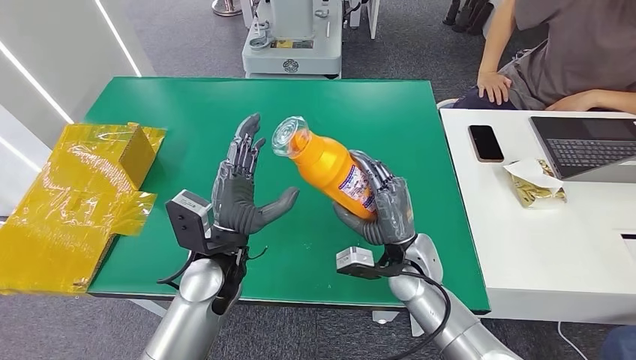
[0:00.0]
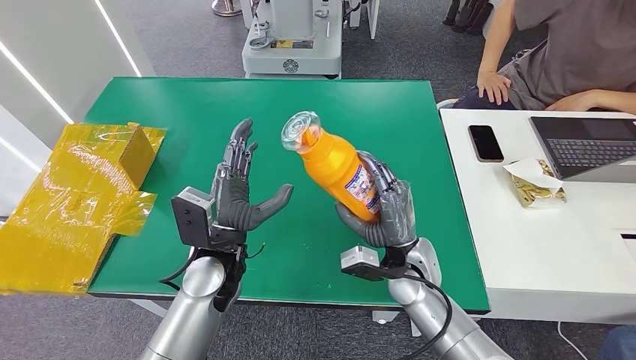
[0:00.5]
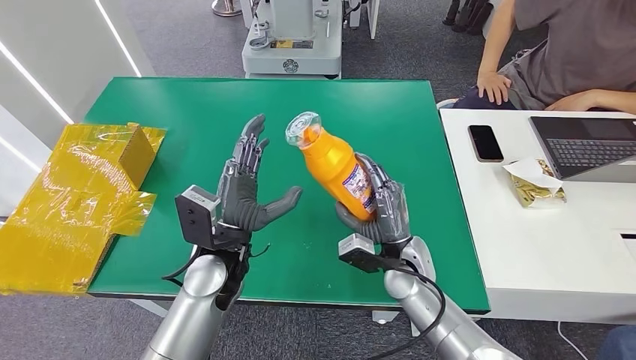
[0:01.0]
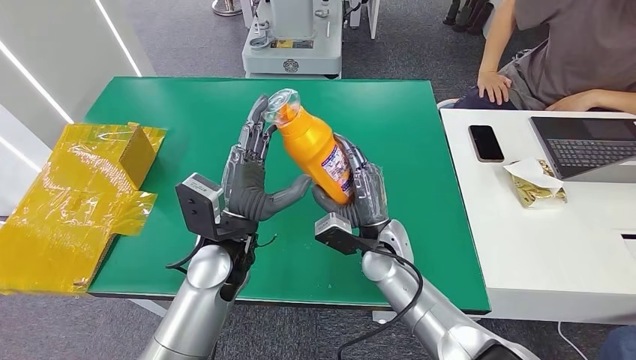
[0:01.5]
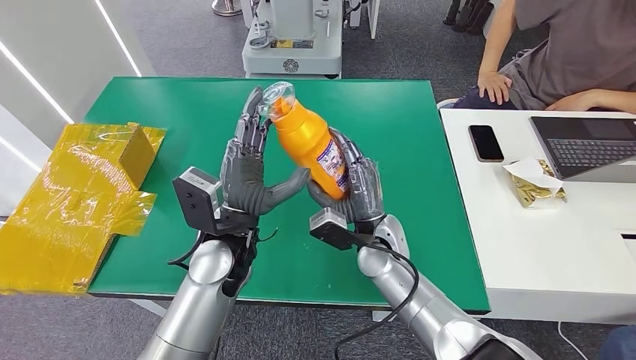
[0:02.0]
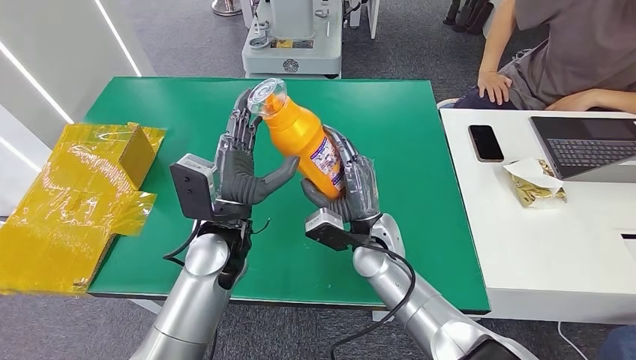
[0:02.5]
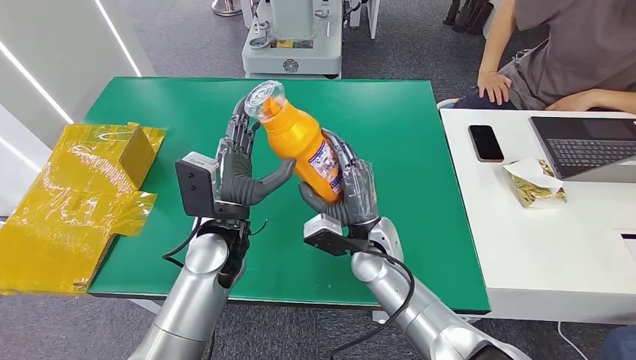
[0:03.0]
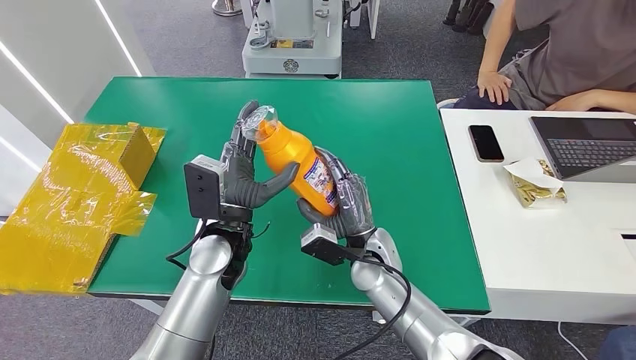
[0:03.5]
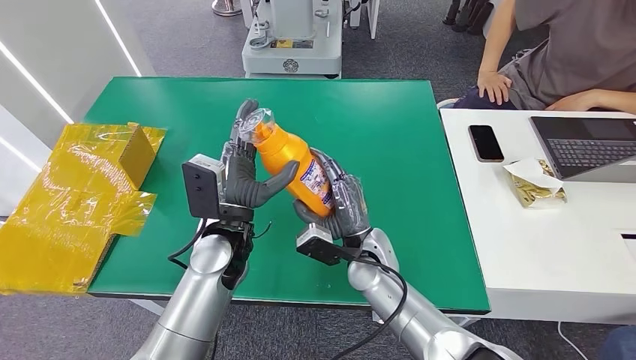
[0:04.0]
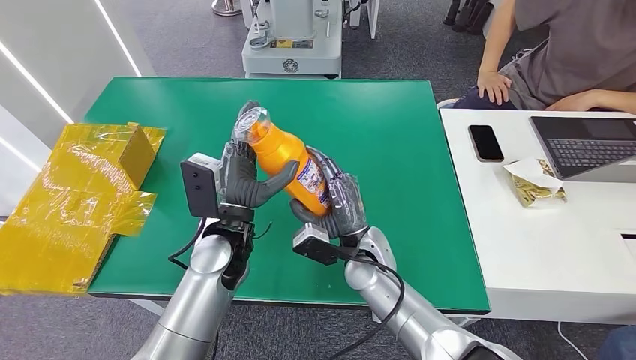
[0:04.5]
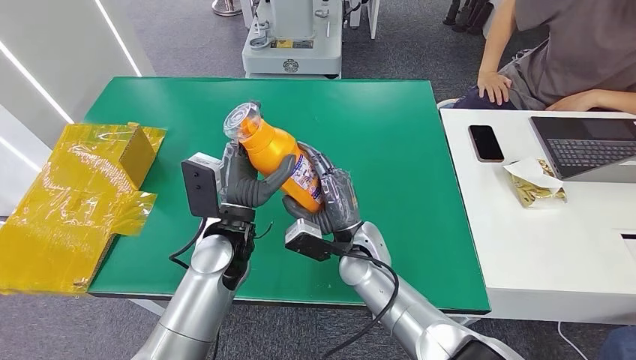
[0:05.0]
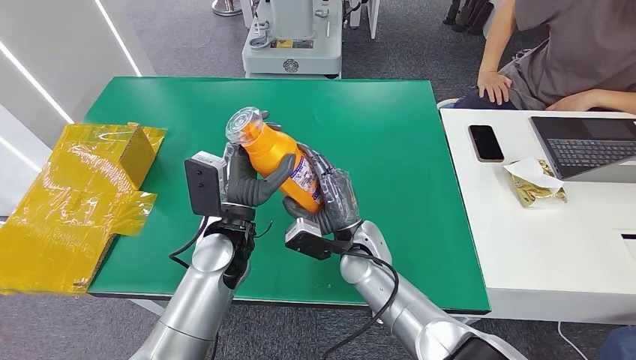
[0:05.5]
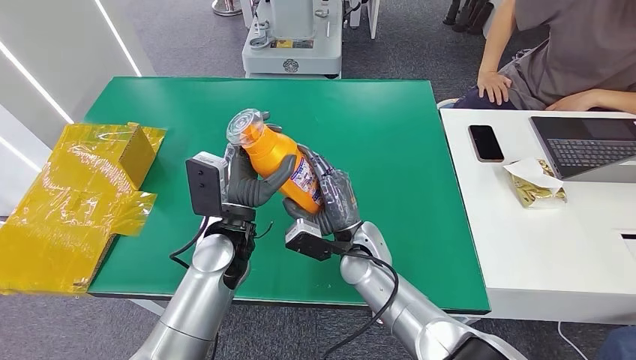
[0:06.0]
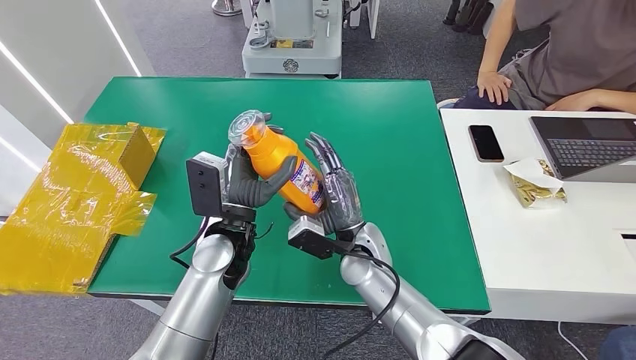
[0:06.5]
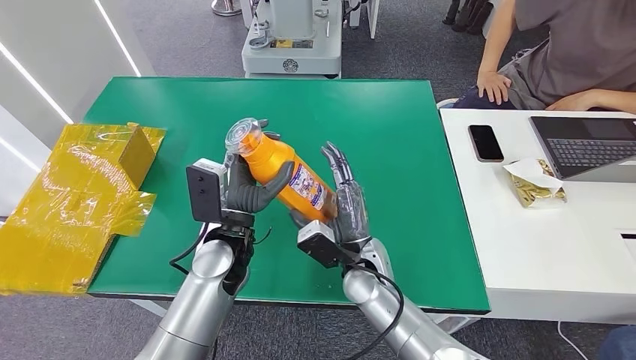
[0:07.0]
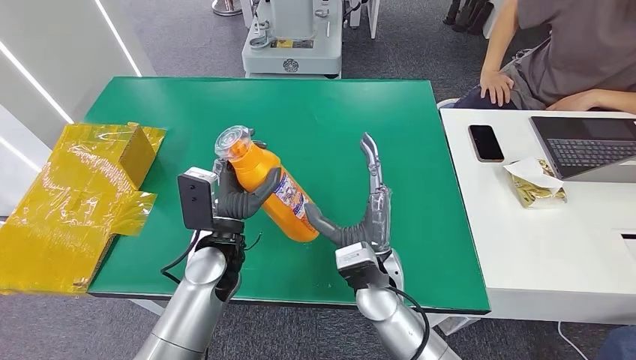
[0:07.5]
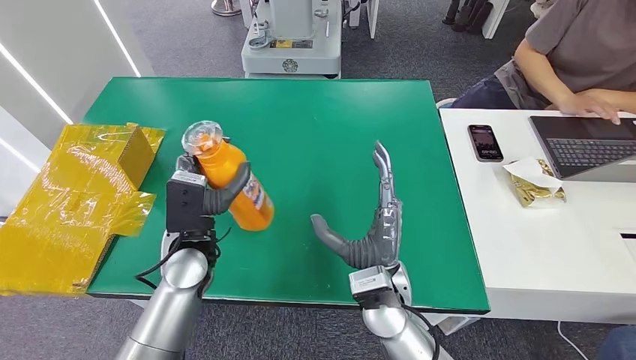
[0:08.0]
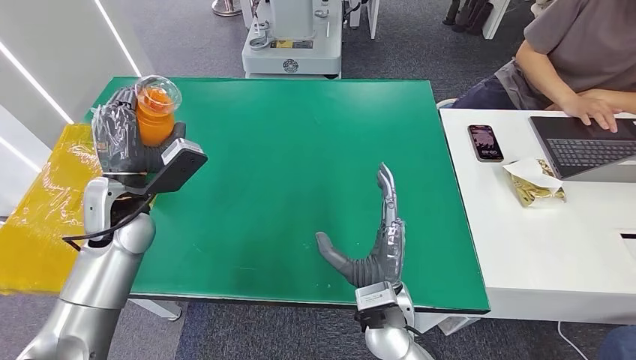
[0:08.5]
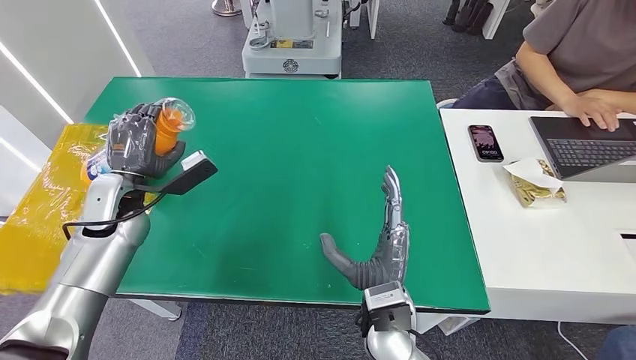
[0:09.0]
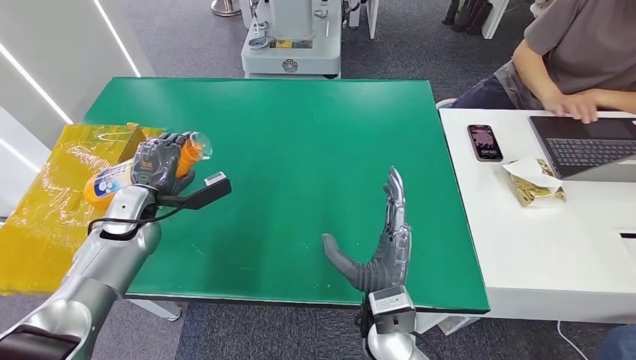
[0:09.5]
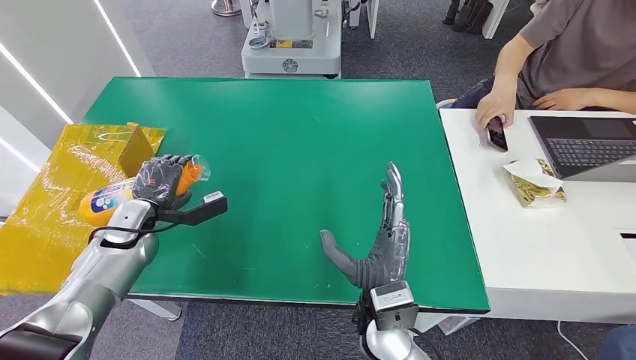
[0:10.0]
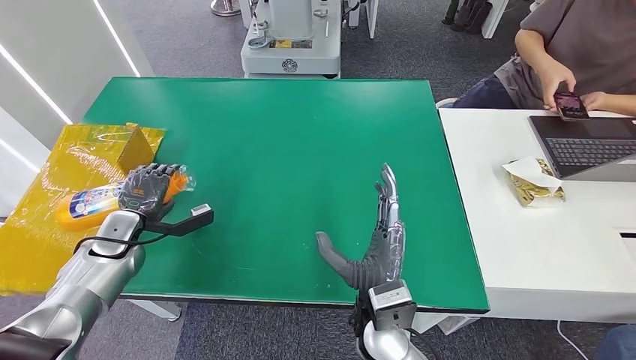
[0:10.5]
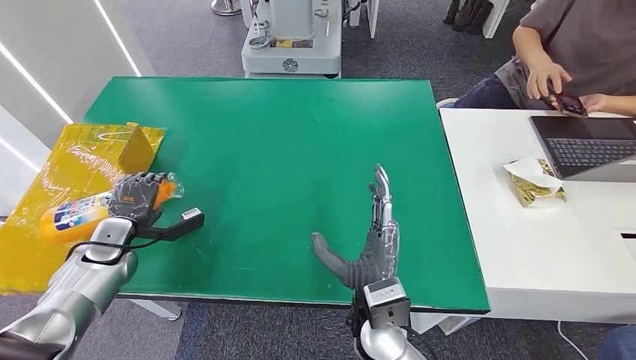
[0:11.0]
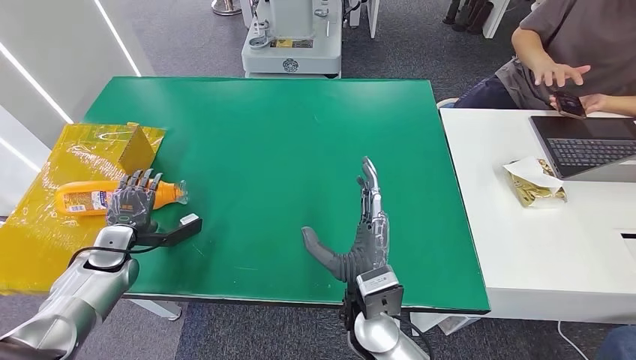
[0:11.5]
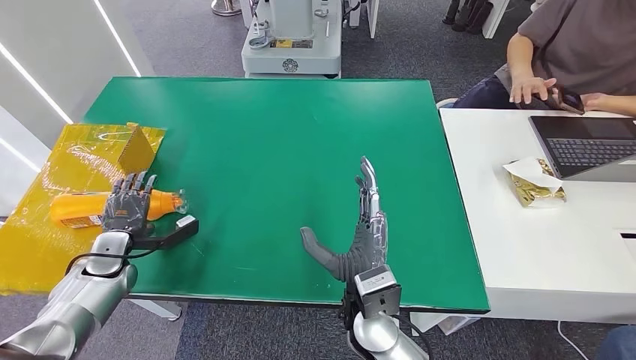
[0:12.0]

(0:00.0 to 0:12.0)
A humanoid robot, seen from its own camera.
Step, 0:00.0 - 0:12.0: Turn the bottle to the front side.
0:00.0 - 0:02.0: The right hand goes about 5 cm to the left.
0:02.0 - 0:06.0: The hands move only a little.
0:06.0 - 0:08.0: The left hand travels to the left by roughly 5 cm, while the right hand shifts about 10 cm backward.
0:08.0 - 0:10.0: The left hand heads to the left, covering some 20 cm.
0:10.0 - 0:12.0: The left hand shifts some 5 cm to the left.
